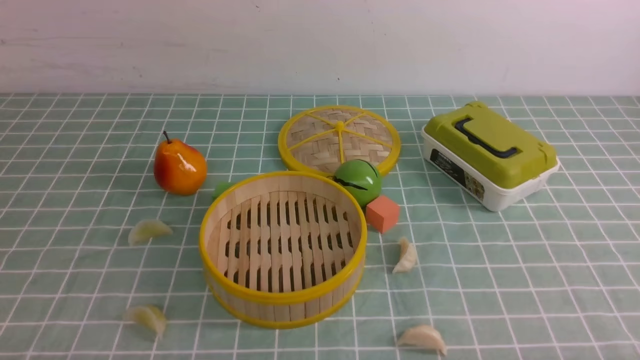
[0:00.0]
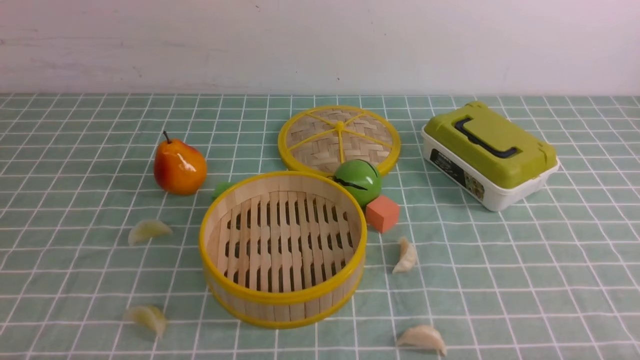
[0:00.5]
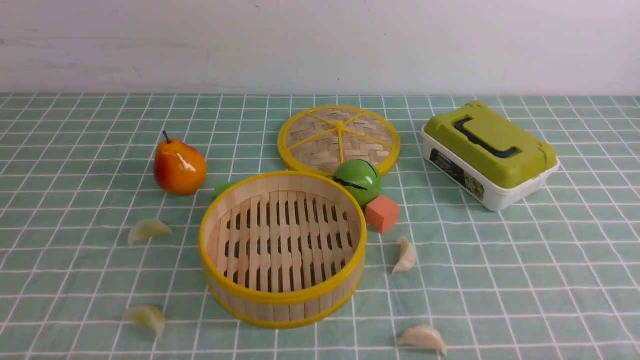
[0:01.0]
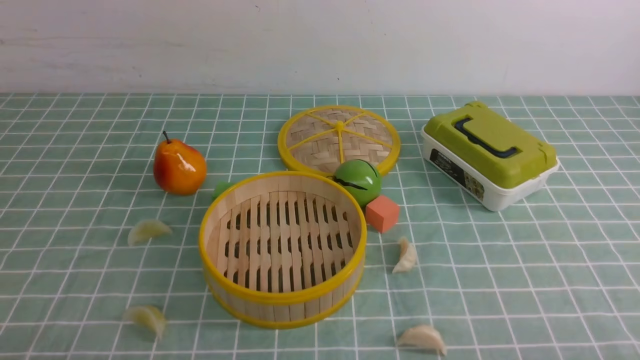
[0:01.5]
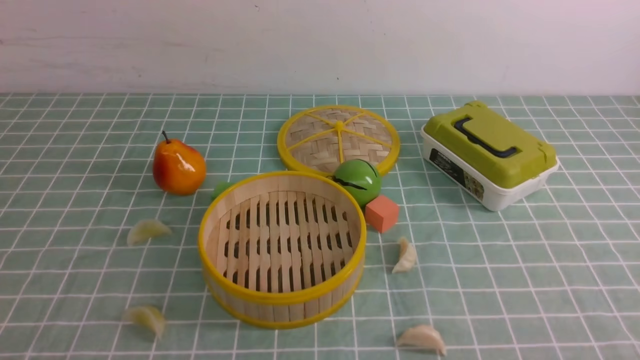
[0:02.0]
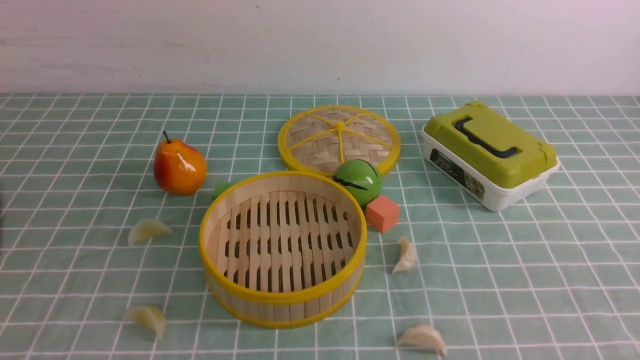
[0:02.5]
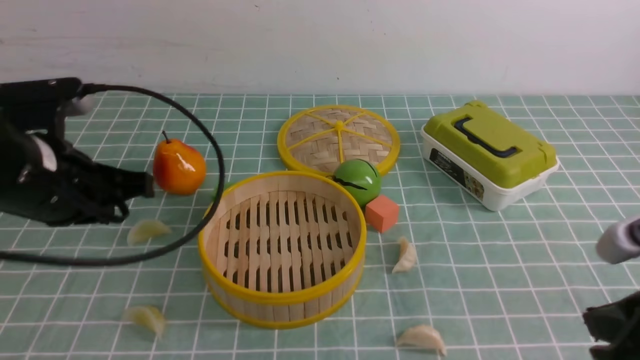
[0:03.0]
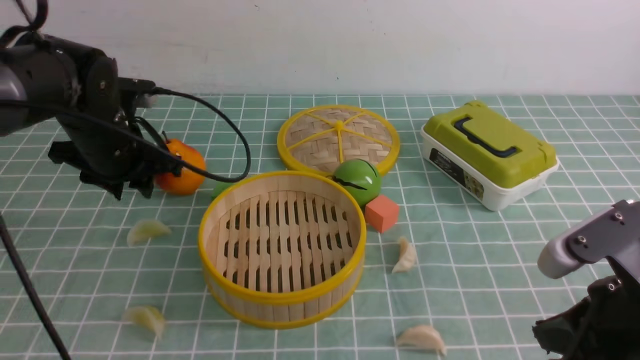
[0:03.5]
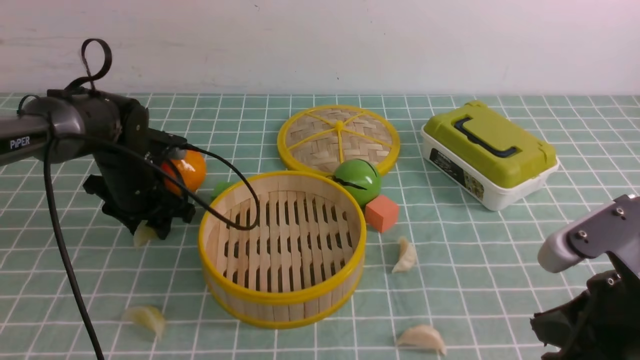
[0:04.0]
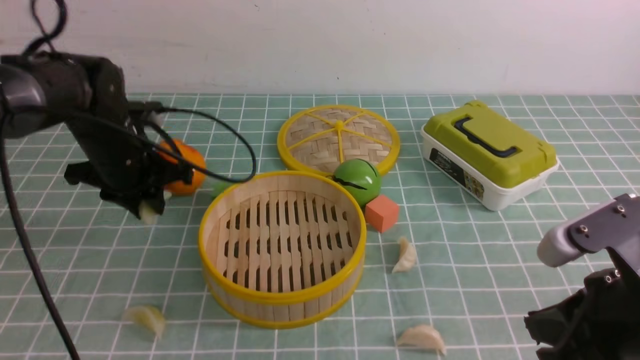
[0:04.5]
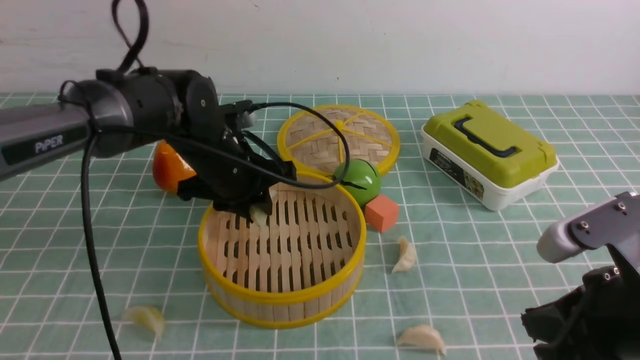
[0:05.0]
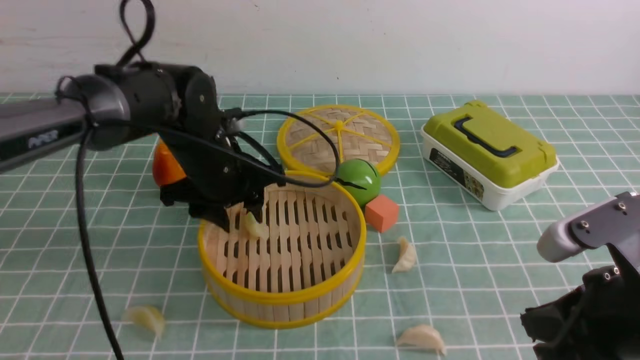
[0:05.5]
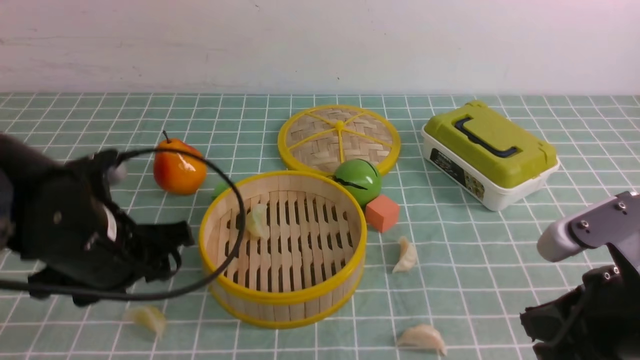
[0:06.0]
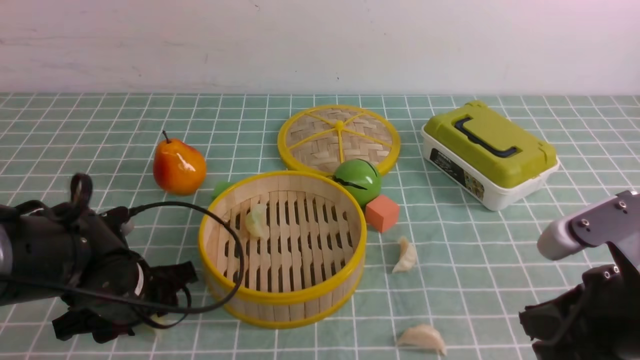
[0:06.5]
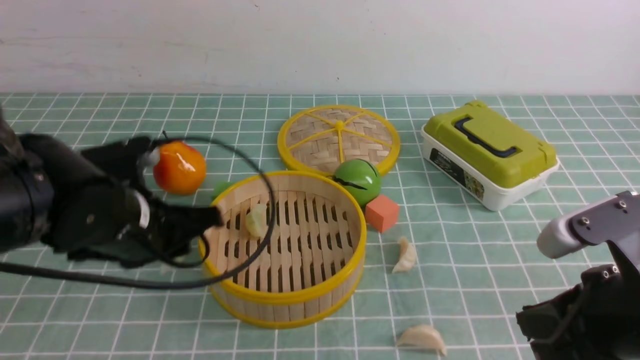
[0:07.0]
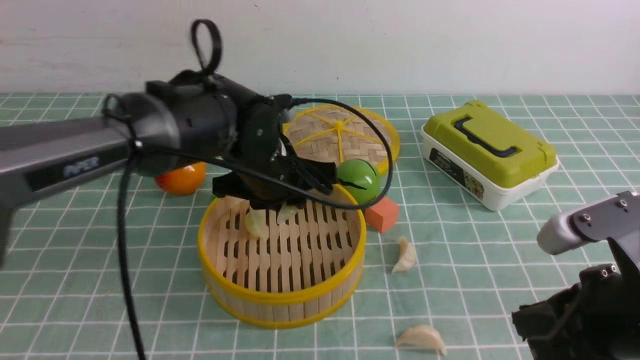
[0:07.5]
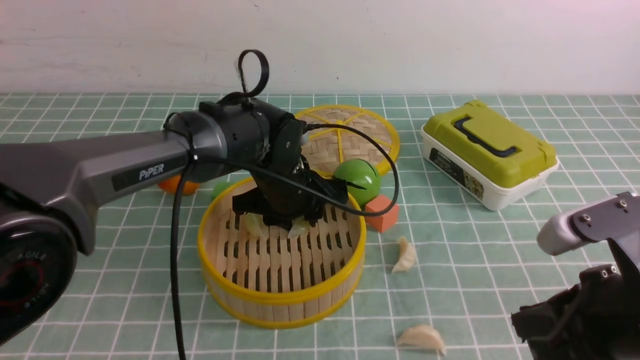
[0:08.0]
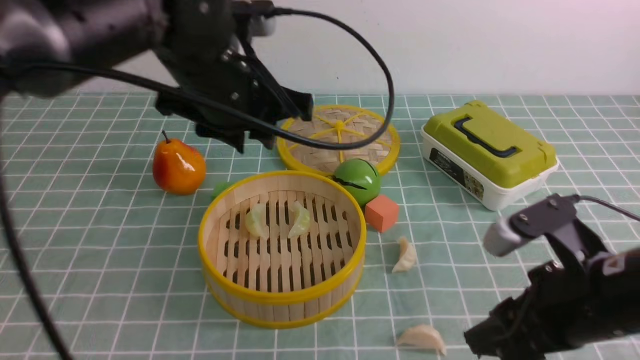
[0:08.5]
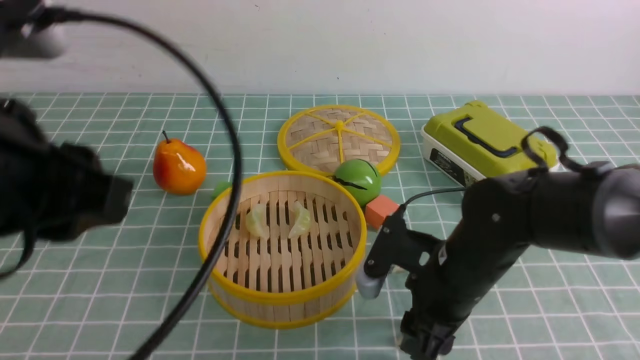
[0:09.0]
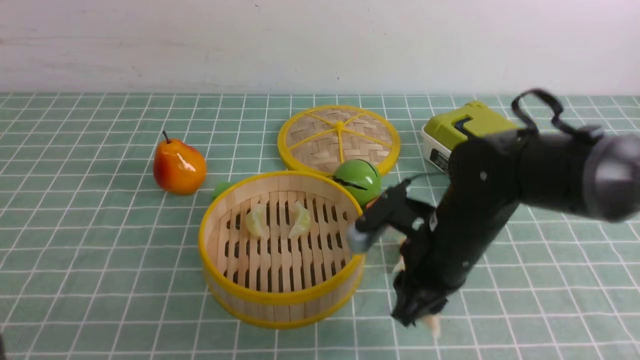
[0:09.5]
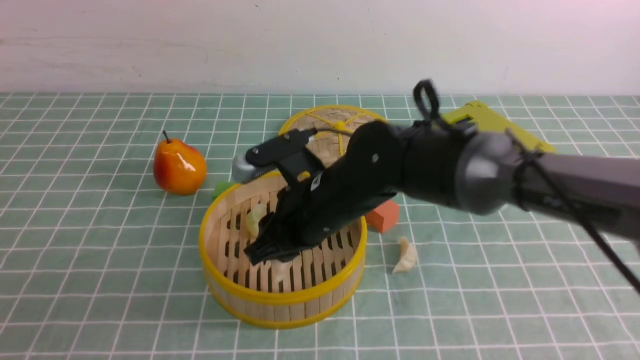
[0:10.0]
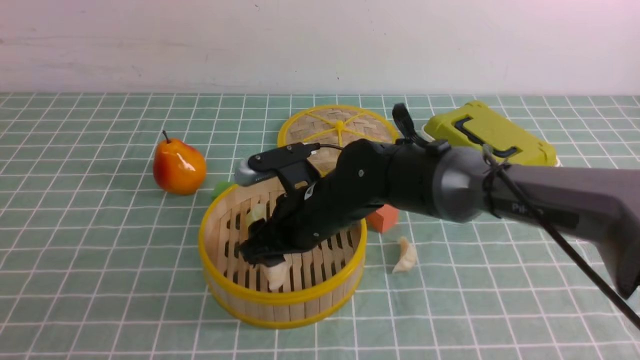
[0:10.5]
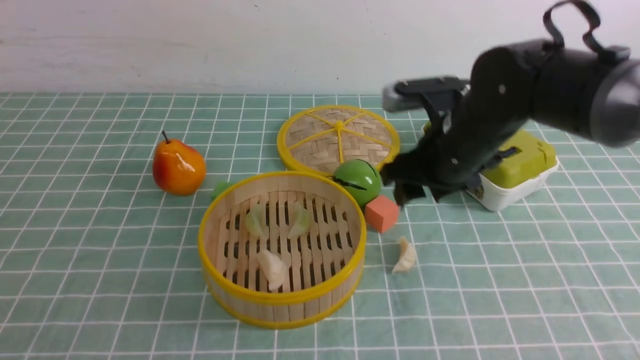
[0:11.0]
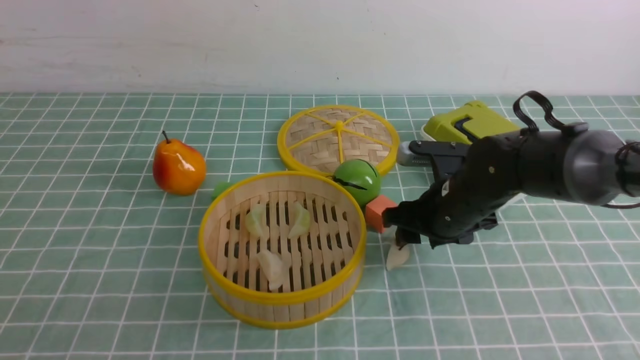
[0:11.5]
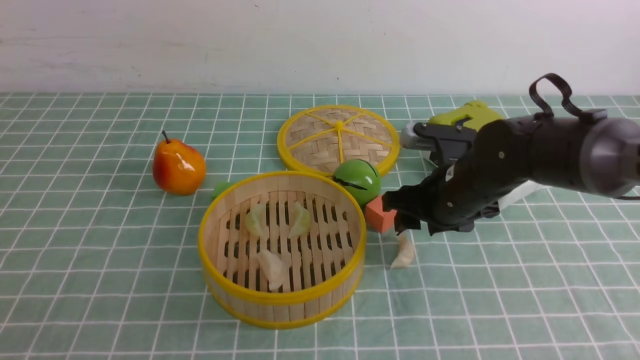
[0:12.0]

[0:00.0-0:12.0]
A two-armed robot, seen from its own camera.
Task of the whole recording: put the dumplings into the steamer on the table with the blue tablecloth.
Step, 0:00.0 to 0:04.0: use the left arm to grab a dumpling.
Step, 0:05.0 to 0:05.5: use the left arm to put the dumpling into the steamer.
Step, 0:06.0 to 0:07.0: use the left arm to grab a dumpling.
Step, 0:07.5 to 0:08.0: use the left arm to put the dumpling into the steamer.
Step, 0:09.0 to 0:09.5: use the right arm to grab a dumpling.
Step, 0:10.0 to 0:10.5: use the right arm to put the dumpling into the steamer.
0:02.0 to 0:04.0: The right gripper goes approximately 15 cm forward and to the left, and closes up, while the left gripper moves forward, approximately 40 cm, and opens up.
0:04.0 to 0:06.0: The left gripper goes approximately 20 cm backward and upward.
0:06.0 to 0:08.0: The left gripper goes approximately 20 cm to the right and forward.
0:08.0 to 0:10.0: The right gripper goes about 25 cm to the left and forward; the left gripper travels backward and to the left by about 40 cm, and closes its fingers.
0:10.0 to 0:12.0: The right gripper shifts roughly 15 cm to the right, and opens its fingers.

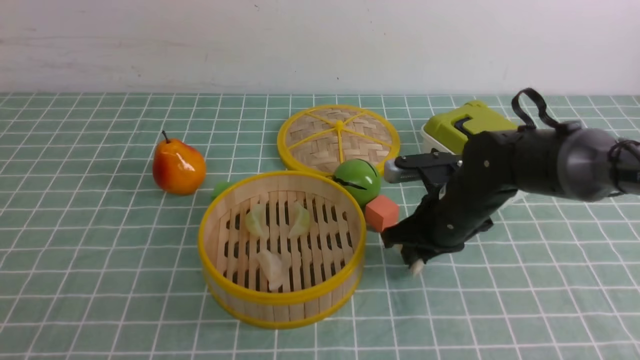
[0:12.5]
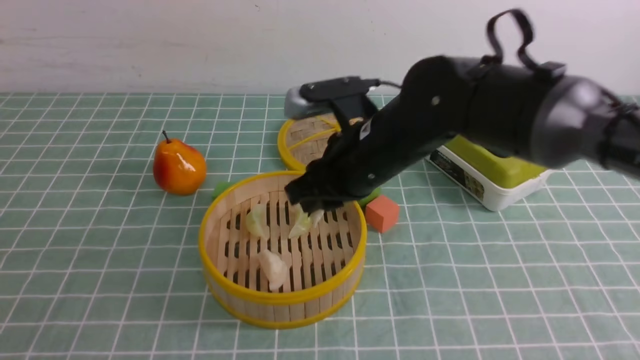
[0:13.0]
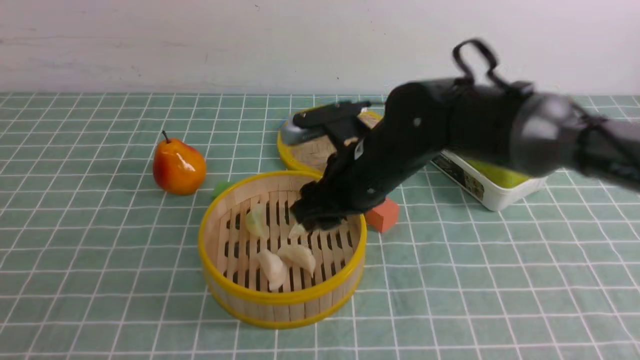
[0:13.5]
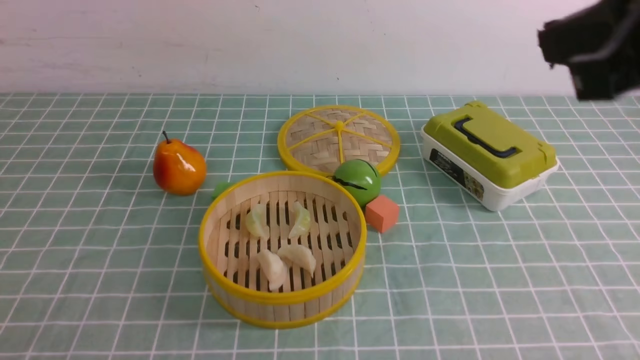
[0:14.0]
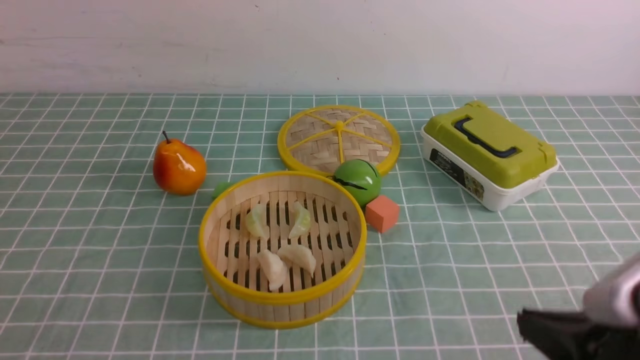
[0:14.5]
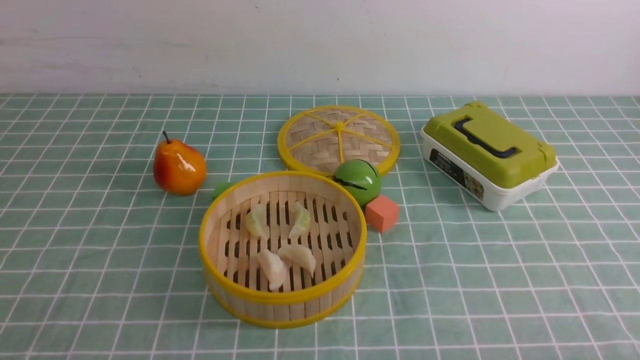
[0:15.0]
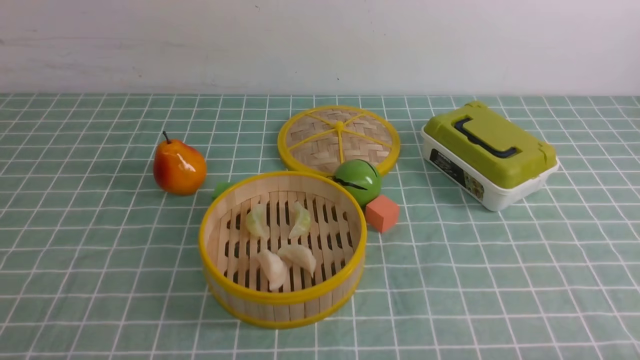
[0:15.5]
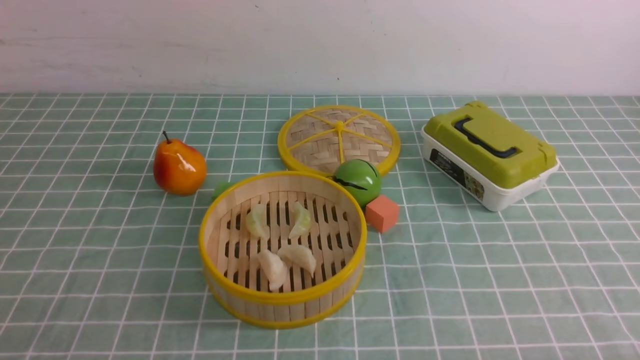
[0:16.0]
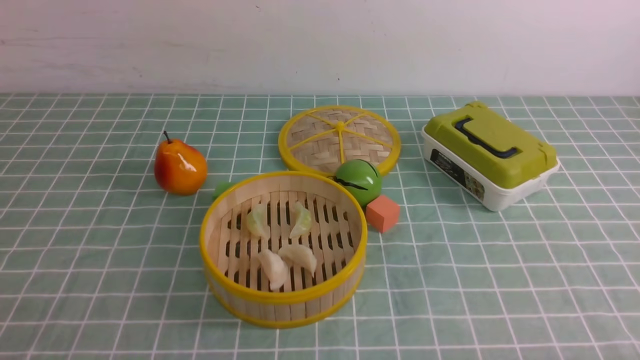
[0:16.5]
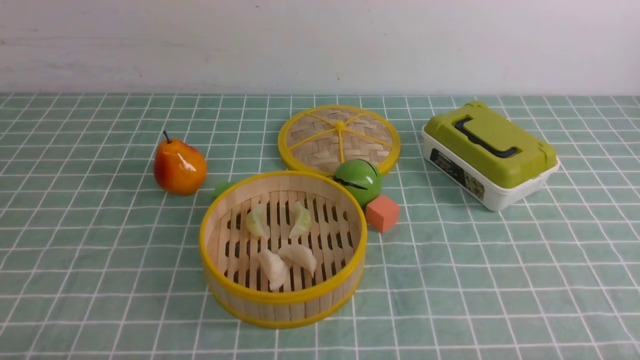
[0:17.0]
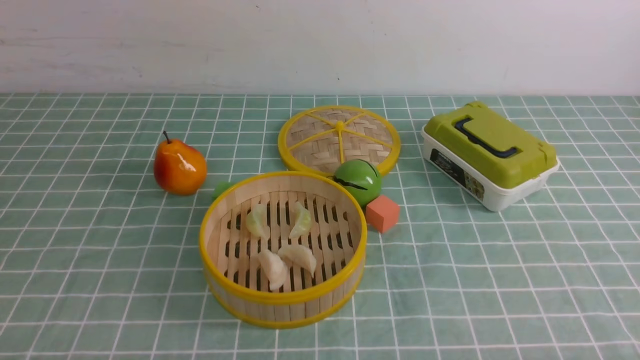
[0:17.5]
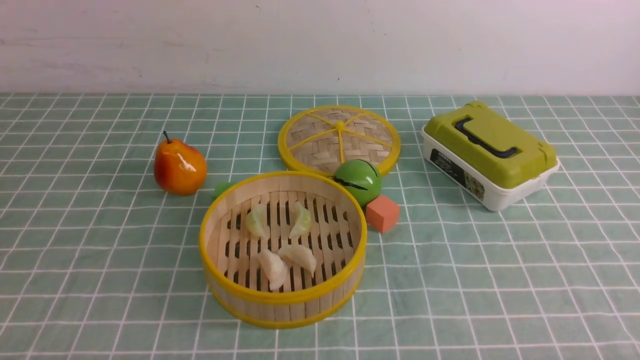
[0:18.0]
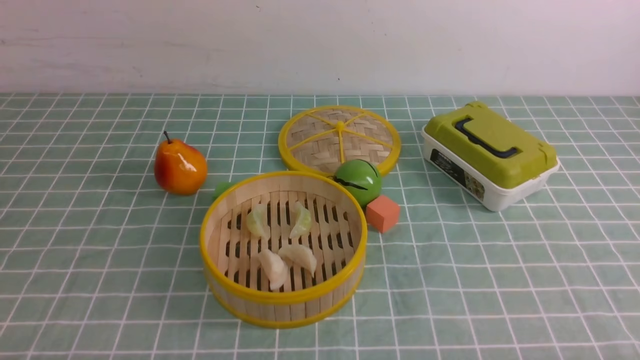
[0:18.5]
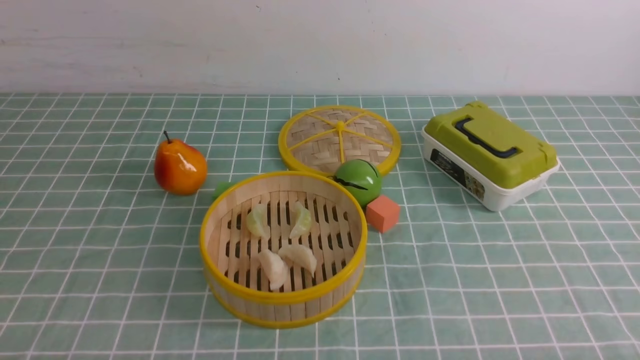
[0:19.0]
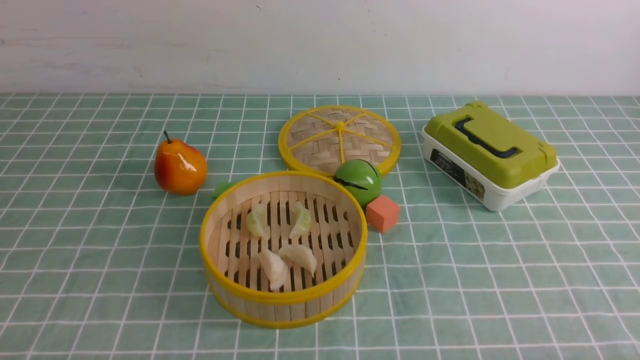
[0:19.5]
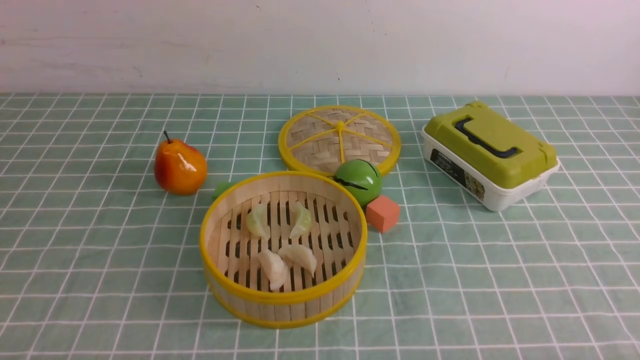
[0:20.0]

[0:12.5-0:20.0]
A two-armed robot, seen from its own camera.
Task of the whole recording: put the dumplings into the steamer on the table with the blue tablecloth.
Step, 0:13.0 to 0:13.5: use the right arm to put the dumpling into the steamer.
0:12.5 to 0:14.5: The right gripper travels backward by roughly 25 cm, and closes its fingers.
0:14.5 to 0:16.5: The right gripper heads to the right, downward and backward, covering about 15 cm.
0:18.0 to 0:20.0: Both grippers stay put.
